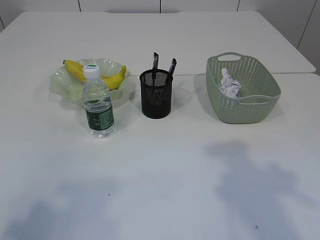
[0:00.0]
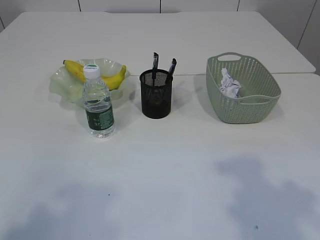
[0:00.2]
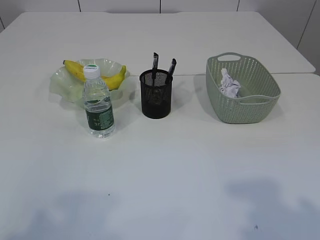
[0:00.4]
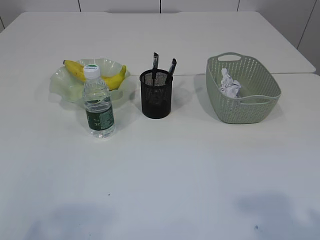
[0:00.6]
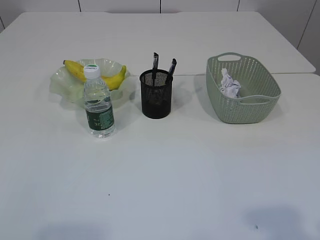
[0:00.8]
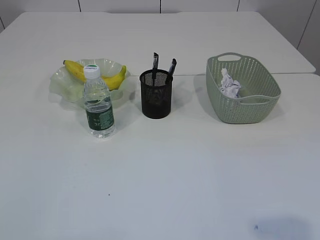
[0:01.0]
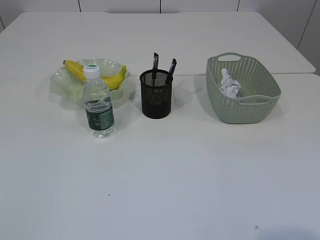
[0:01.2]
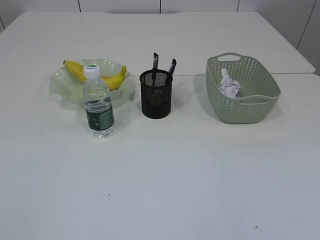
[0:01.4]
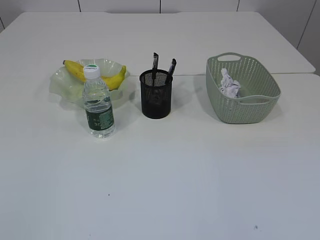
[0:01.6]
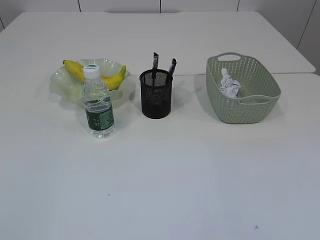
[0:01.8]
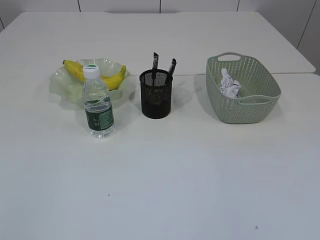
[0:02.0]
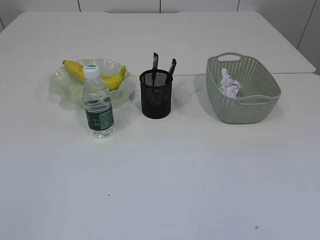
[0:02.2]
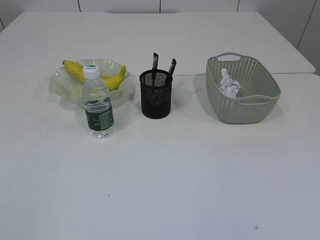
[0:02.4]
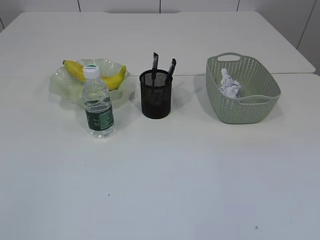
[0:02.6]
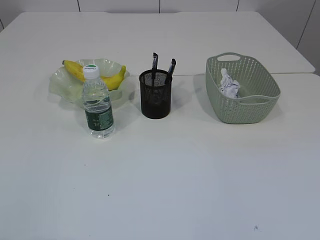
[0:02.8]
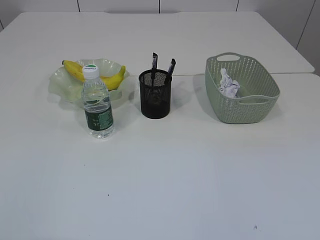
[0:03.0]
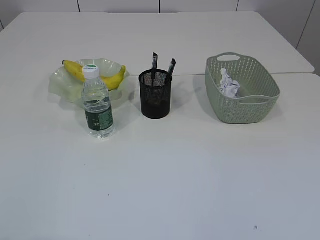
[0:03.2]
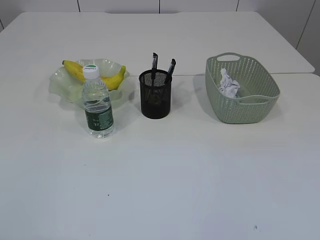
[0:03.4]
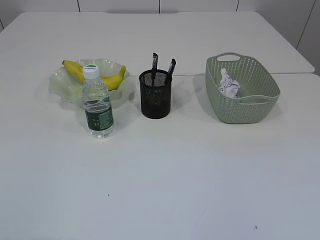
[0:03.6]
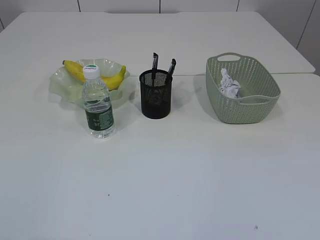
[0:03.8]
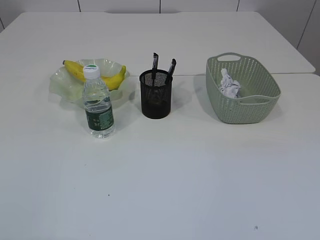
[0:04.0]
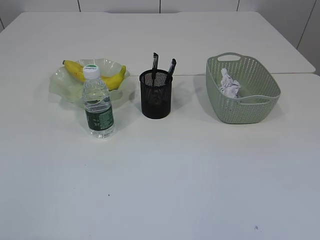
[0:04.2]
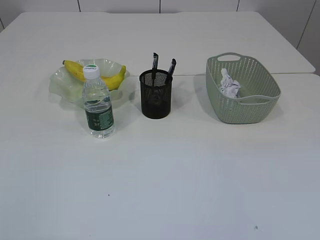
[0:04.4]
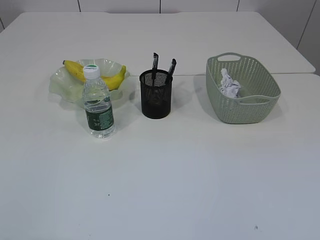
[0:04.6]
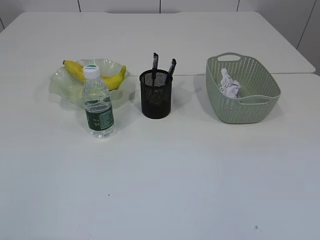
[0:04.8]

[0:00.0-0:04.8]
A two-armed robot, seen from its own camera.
0:00.0 to 0:01.6: The left gripper heads backward and downward, covering some 10 cm.
0:03.2 to 0:04.8: Both grippers stay about where they are.

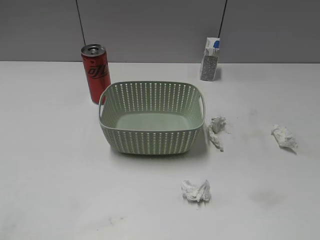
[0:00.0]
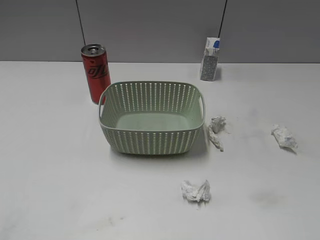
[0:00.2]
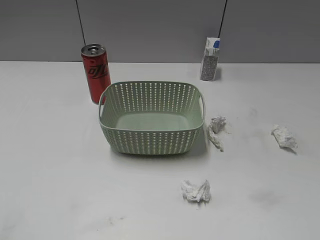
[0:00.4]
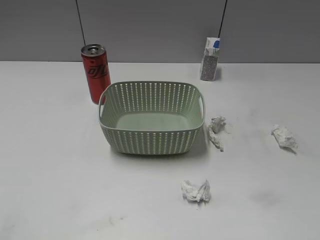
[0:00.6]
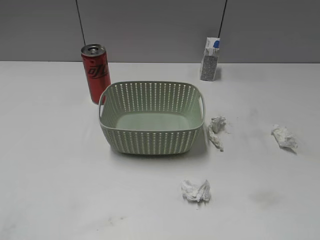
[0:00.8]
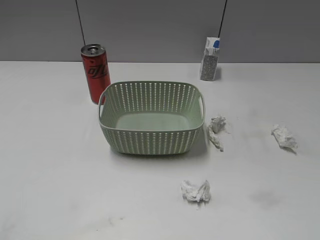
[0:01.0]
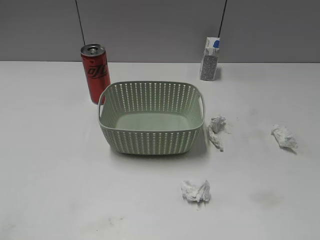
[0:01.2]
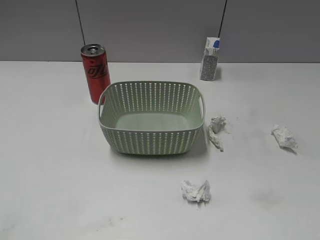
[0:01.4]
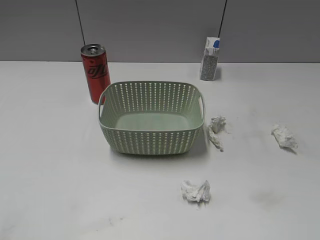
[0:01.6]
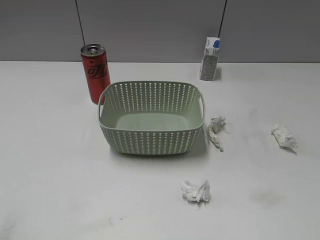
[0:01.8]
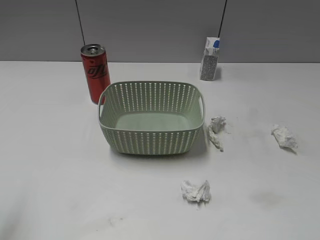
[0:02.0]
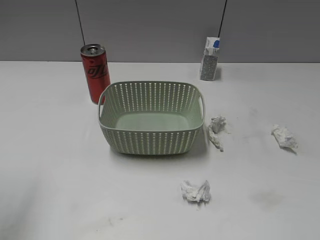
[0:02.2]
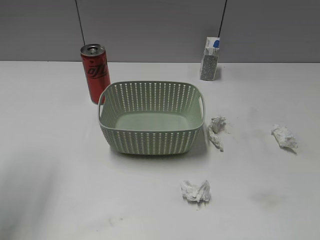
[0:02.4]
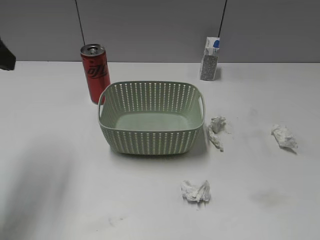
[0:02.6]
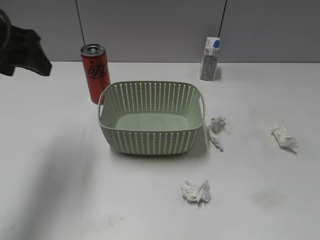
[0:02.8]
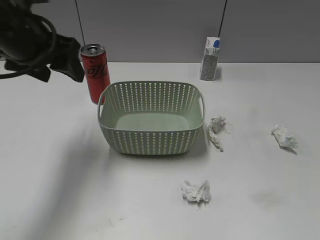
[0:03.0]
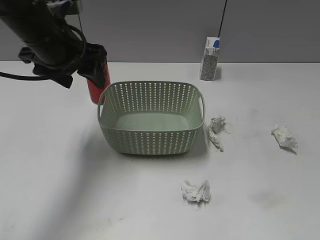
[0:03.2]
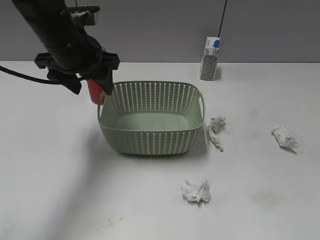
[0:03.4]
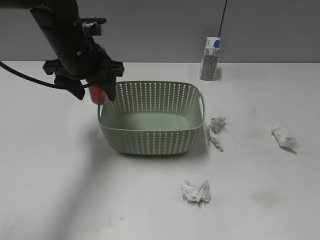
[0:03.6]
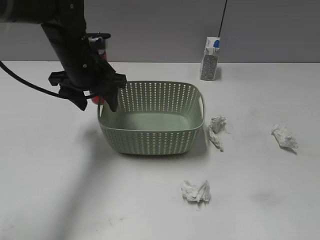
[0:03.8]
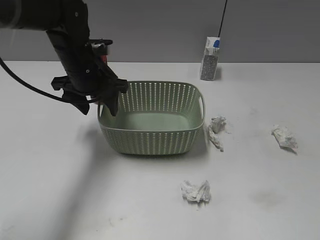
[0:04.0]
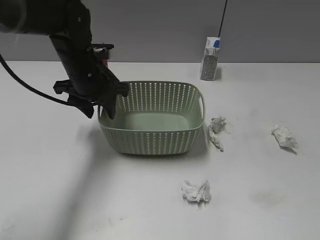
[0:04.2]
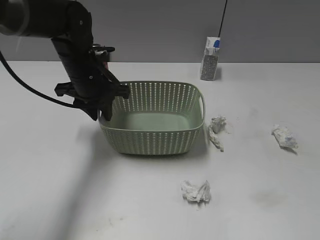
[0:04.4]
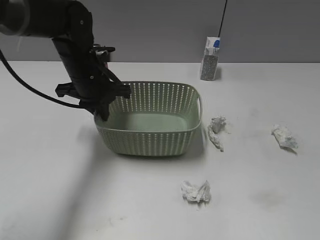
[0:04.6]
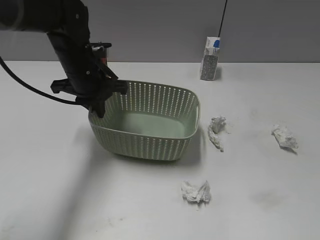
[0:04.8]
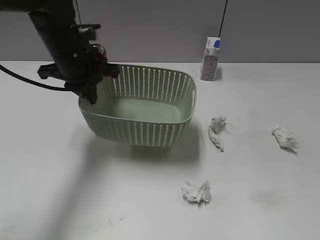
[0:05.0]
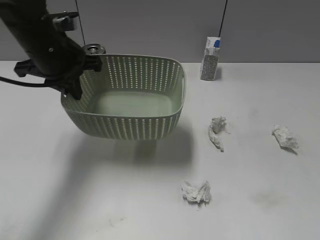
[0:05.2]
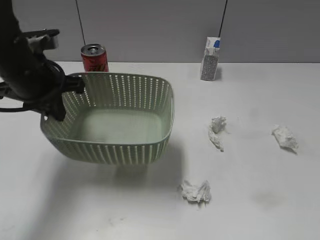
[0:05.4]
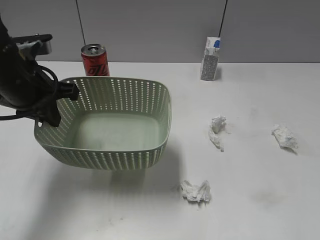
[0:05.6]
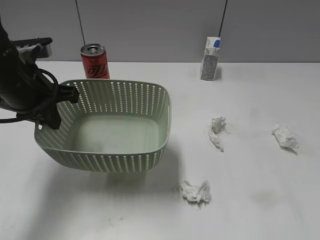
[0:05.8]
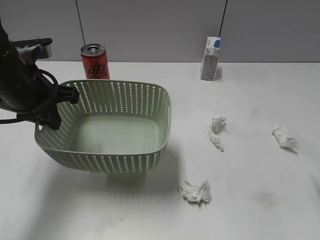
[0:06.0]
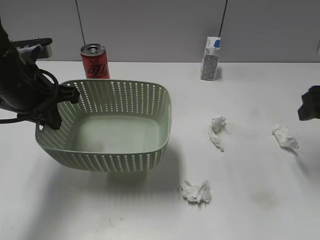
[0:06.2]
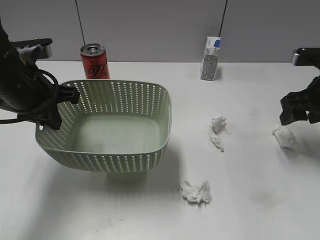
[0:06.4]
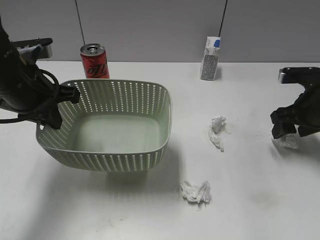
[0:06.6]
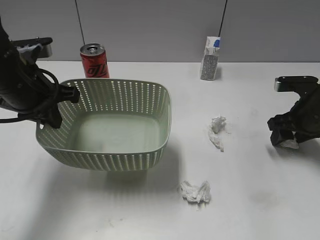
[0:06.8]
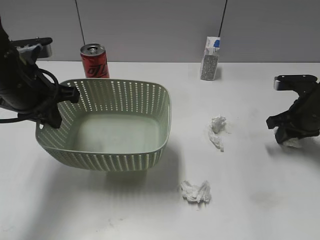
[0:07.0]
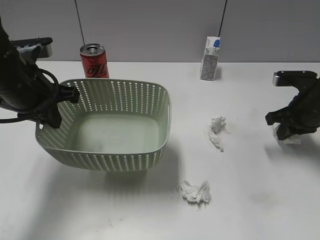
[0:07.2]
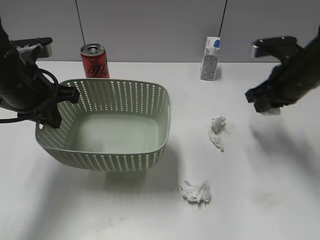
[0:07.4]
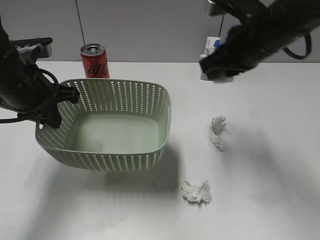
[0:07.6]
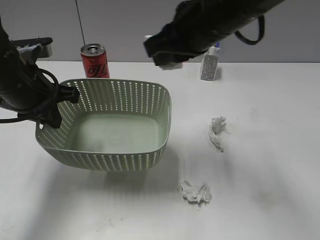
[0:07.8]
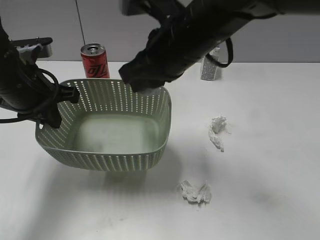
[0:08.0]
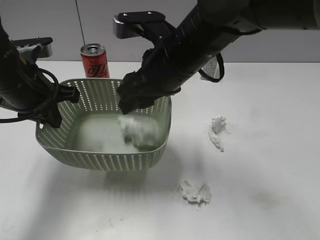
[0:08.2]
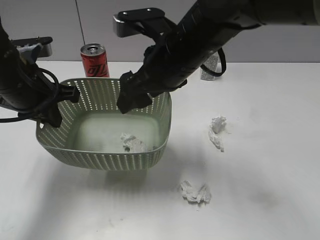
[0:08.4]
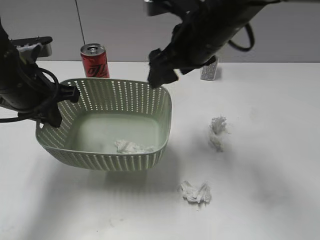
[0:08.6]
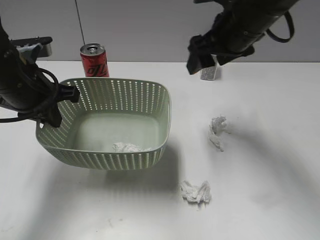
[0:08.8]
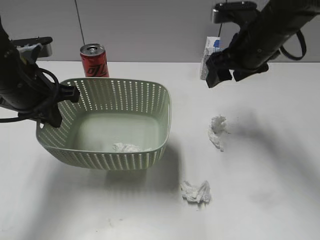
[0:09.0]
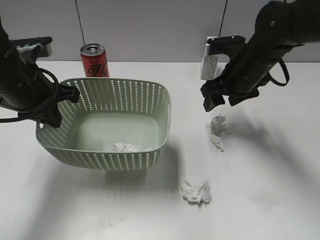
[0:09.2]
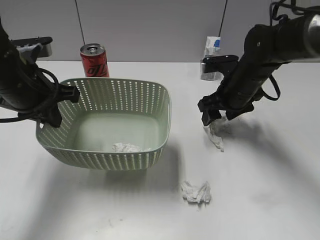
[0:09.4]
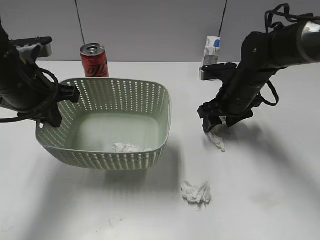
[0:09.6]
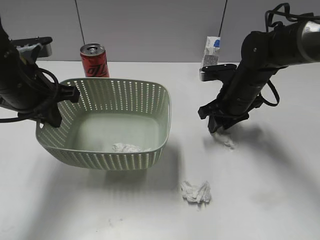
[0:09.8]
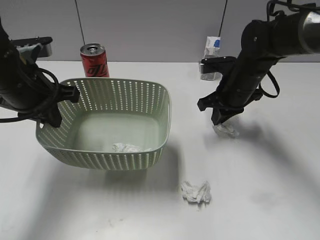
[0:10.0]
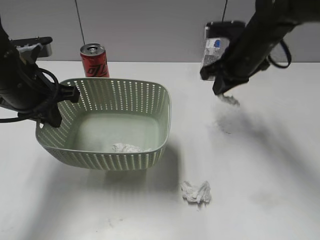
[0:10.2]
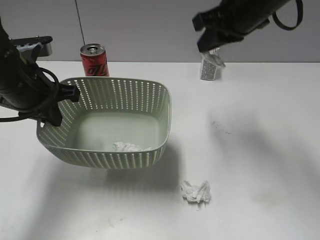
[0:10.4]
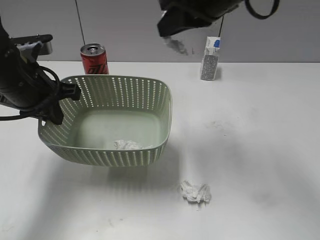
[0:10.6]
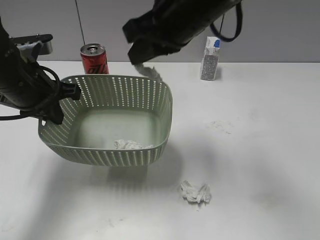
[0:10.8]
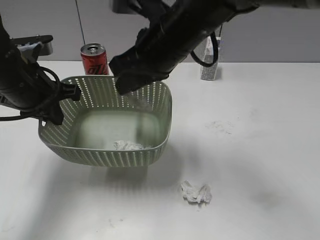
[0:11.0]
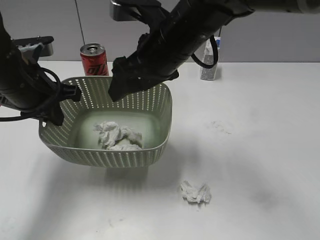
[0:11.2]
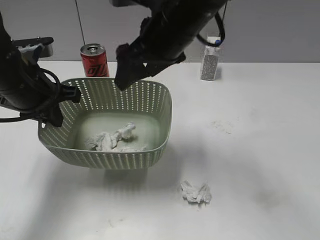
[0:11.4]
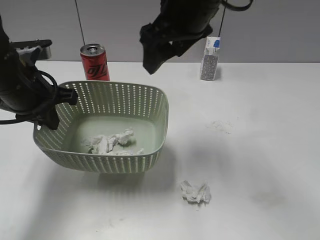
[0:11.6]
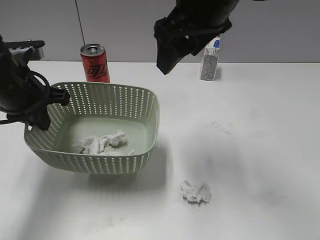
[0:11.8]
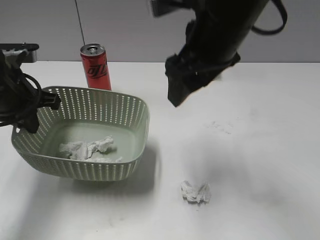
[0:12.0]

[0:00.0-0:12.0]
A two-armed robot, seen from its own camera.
Step, 0:00.0 to 0:04.6: Grasp the basket with left gripper.
Step, 0:04.8 to 0:05.6: Lift the basket with left gripper.
Step, 0:05.8 to 0:07.2: Grasp the waste paper with right gripper.
Step, 0:07.4 to 0:08.6: Place the waste paper in the basket with right gripper.
Step, 0:08.8 to 0:10.0: Grasp the waste paper with right gripper.
Step, 0:10.2 to 0:11.4: Place the waste paper in the basket with right gripper.
0:01.6 to 0:03.0: The left gripper moves forward and to the right, approximately 30 cm.
0:03.0 to 0:04.4: The left gripper shifts some 15 cm downward, to the right and forward, and closes.
0:04.4 to 0:06.0: The right gripper is displaced forward by roughly 20 cm, while the left gripper heads backward, to the left and upward, covering about 15 cm, and closes.
0:06.0 to 0:07.6: The right gripper travels to the left and forward by roughly 20 cm, and closes.
0:07.6 to 0:09.0: The right gripper is displaced forward by roughly 5 cm, moves approximately 10 cm to the left and comes back, and opens.
0:09.0 to 0:10.4: The right gripper goes roughly 10 cm upward, and closes.
0:10.4 to 0:12.0: The right gripper moves backward and to the left, some 10 cm, and opens up.

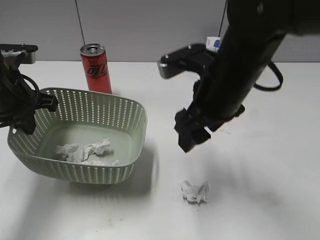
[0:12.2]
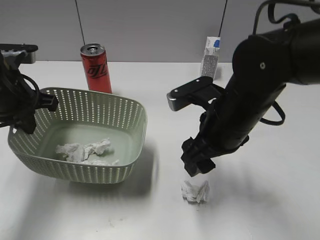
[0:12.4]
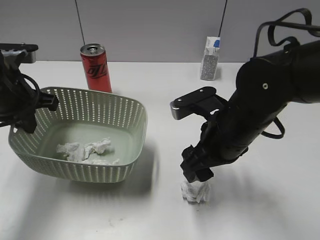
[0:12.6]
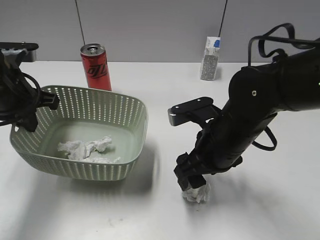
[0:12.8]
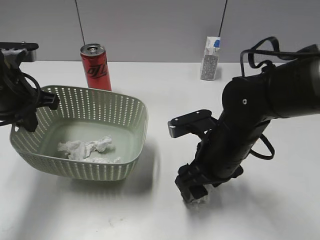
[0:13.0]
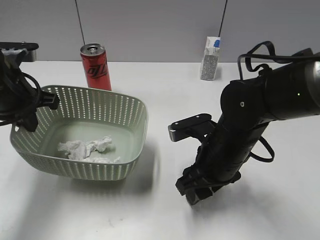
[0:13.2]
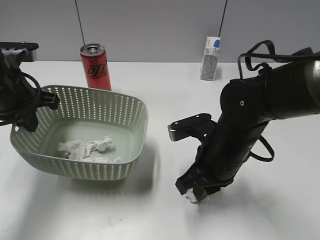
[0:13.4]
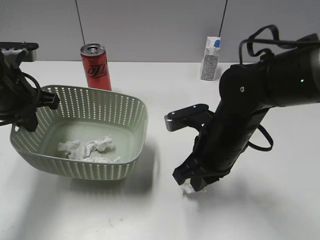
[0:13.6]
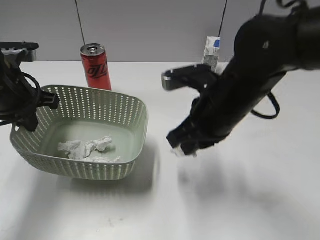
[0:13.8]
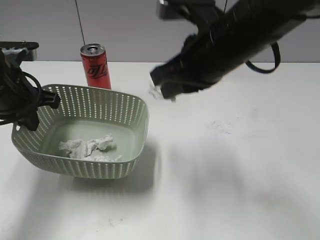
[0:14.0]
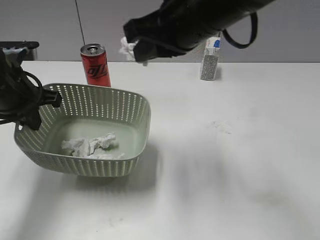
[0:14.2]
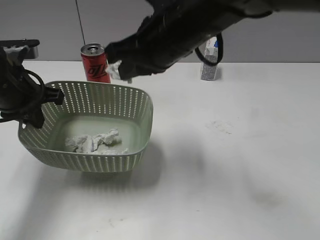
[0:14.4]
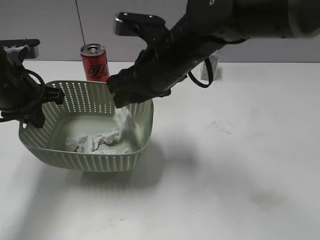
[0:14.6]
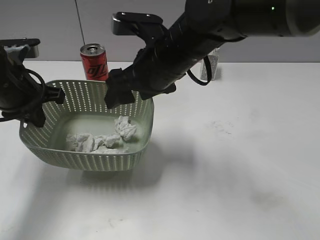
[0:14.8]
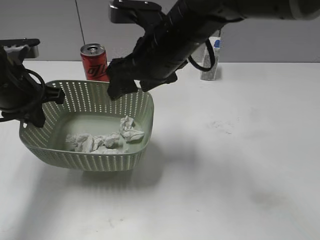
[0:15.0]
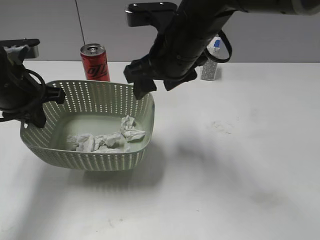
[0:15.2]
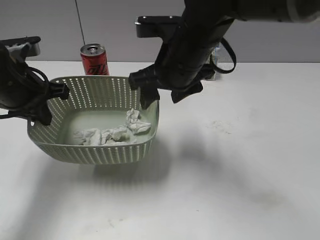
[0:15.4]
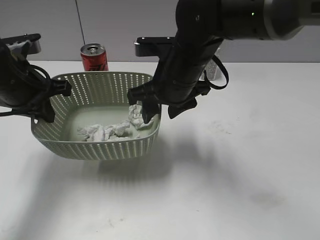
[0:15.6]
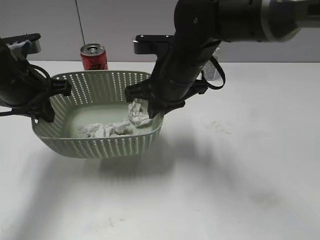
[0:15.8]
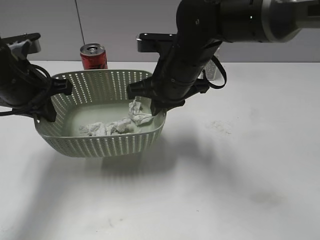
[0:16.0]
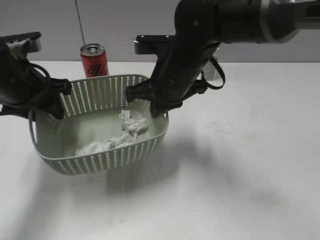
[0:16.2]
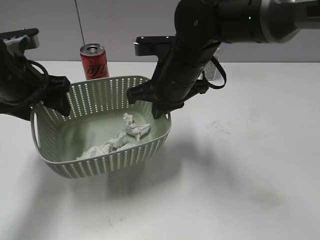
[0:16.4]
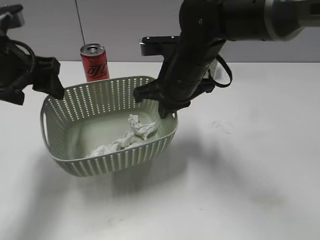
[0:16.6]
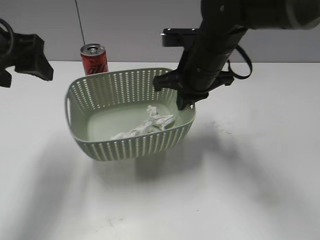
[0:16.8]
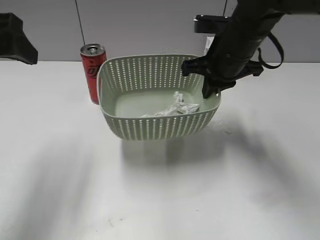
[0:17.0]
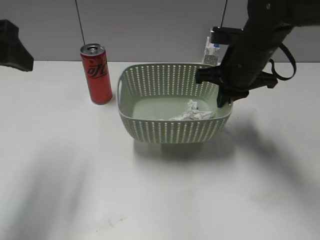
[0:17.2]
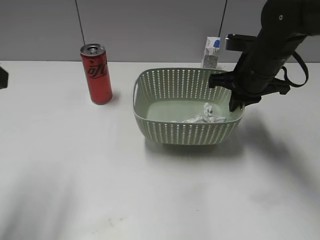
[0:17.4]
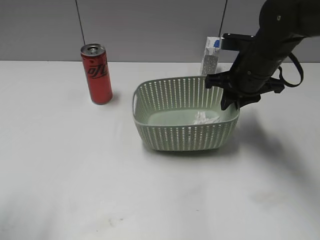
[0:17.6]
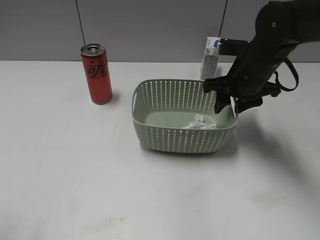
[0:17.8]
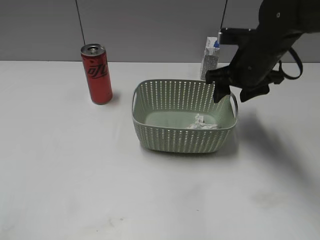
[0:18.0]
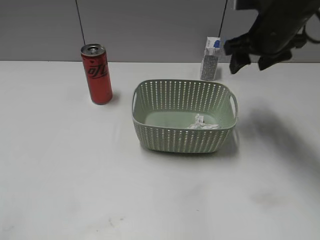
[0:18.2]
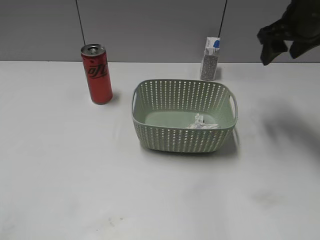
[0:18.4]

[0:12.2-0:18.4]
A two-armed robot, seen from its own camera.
Step, 0:12.2 to 0:13.4: Grasp the waste paper with right gripper.
Step, 0:13.6 to 0:15.0: Place the waste paper in the basket with right gripper.
Step, 0:15.2 to 0:16.4: Hand the basket to the right gripper with the left gripper.
Step, 0:16.6 to 0:18.0: Place the basket on the table with right gripper.
0:12.2 to 0:13.8: The right gripper goes downward and returns, about 10 cm each way, and closes.
0:13.8 to 0:15.4: The right gripper moves forward and to the left, some 10 cm, moves roughly 10 cm upward and comes back, and opens up.
0:15.4 to 0:16.8: The left gripper moves upward, about 10 cm, and opens its fingers. The right gripper shifts by approximately 5 cm, and closes its fingers.
0:16.8 to 0:18.4: The left gripper travels backward and to the left by some 30 cm; the right gripper is displaced to the right and upward by some 20 cm, and opens up.
